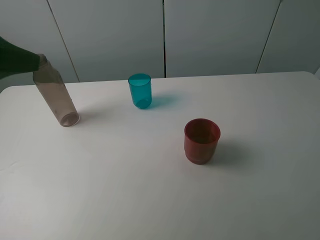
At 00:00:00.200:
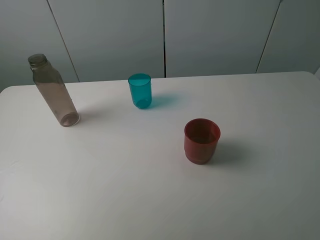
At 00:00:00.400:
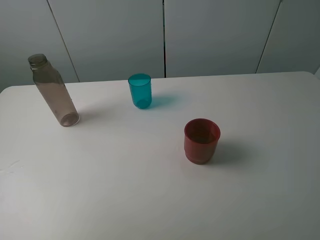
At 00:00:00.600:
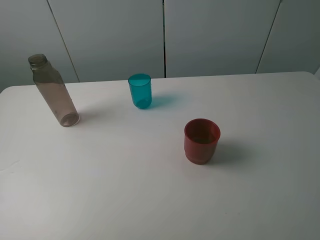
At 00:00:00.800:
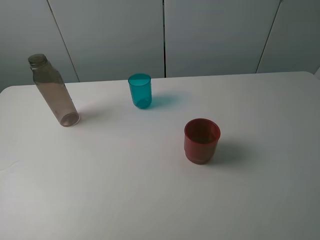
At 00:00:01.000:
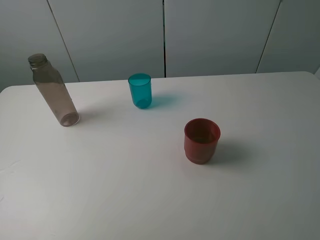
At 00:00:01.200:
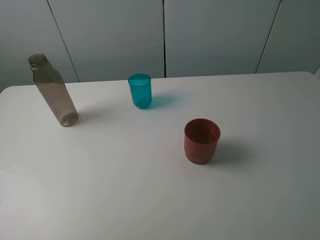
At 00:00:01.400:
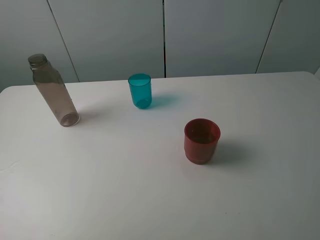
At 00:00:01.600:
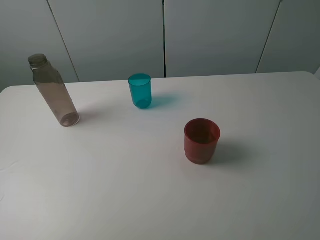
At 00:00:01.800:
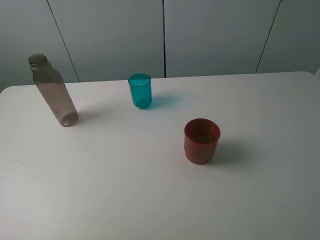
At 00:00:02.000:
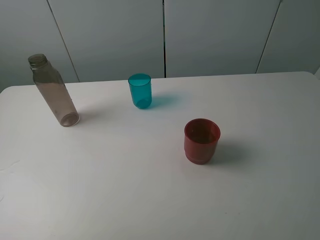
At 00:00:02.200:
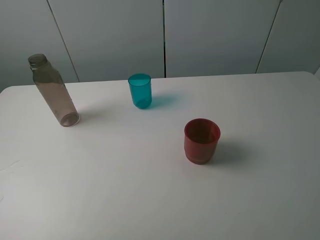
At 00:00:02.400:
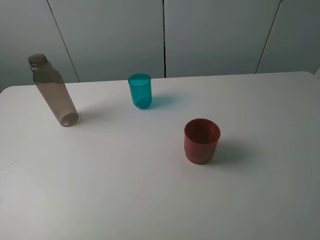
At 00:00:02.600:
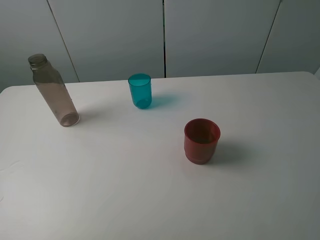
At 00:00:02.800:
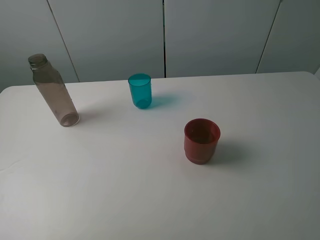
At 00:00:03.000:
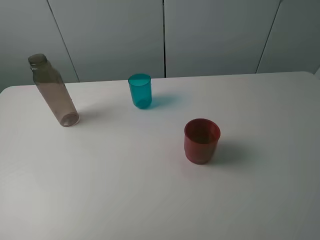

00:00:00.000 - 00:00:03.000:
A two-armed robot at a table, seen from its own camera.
Task of the whole recording: pick up the bottle and pour water into the cup, then pick up the cup containing water and pour it into another cup.
00:00:00.000 - 00:00:01.600: The left gripper travels backward, to the left and downward by roughly 20 cm.
